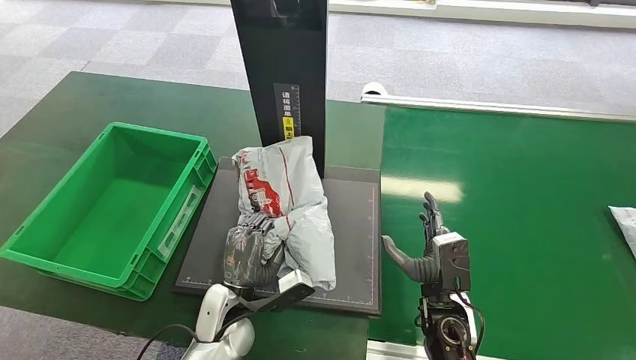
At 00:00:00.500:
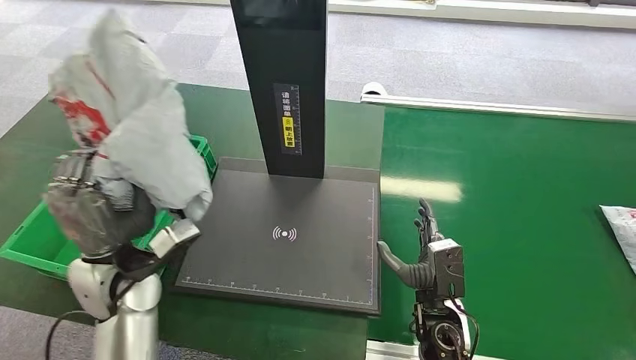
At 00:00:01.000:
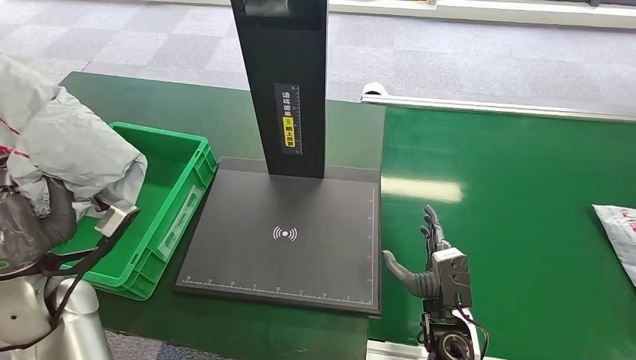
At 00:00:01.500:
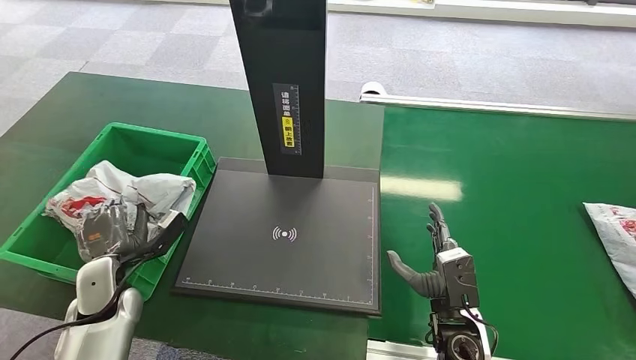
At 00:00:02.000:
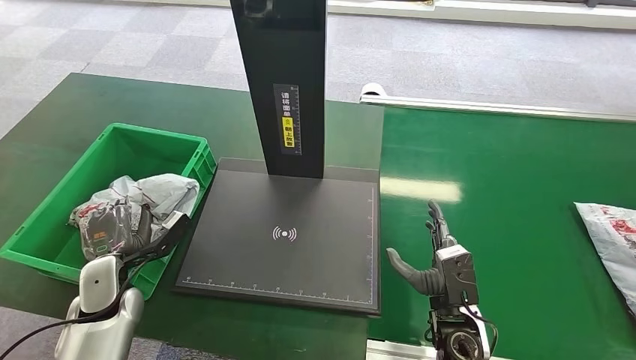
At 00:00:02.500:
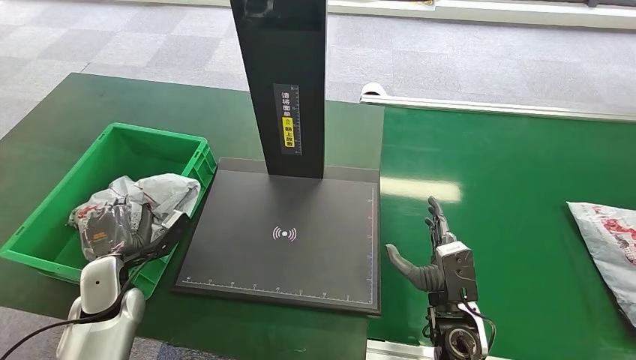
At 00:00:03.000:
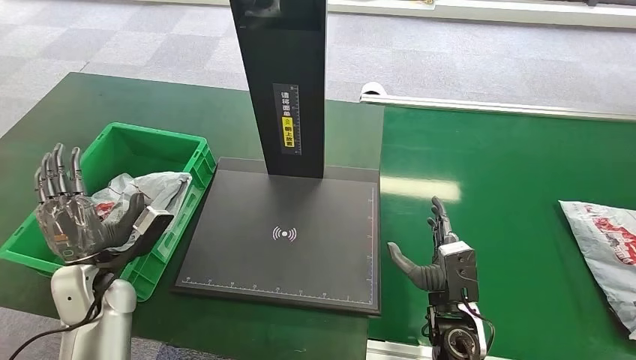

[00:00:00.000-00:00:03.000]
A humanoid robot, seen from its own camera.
Step, 00:00:00.500 to 00:00:03.000: Place the package into the parcel locker.
00:00:00.000 to 00:00:01.500: The left hand heads to the left, covering approximately 20 cm.

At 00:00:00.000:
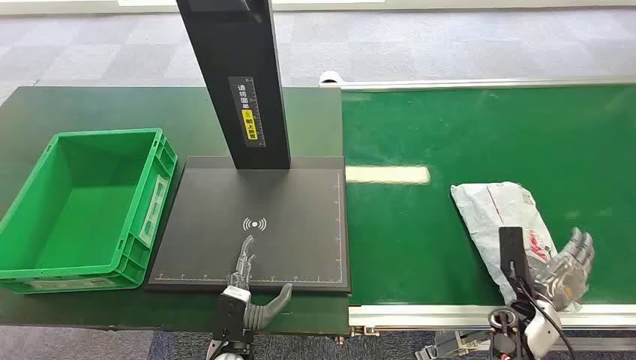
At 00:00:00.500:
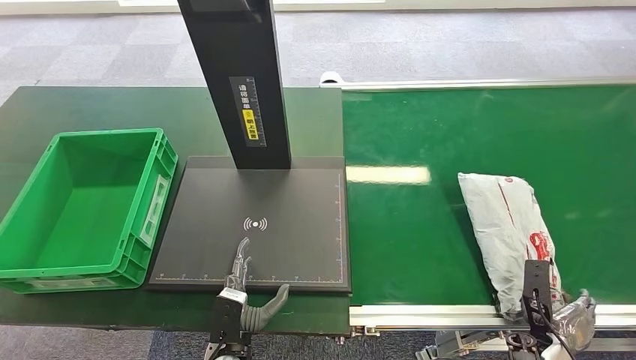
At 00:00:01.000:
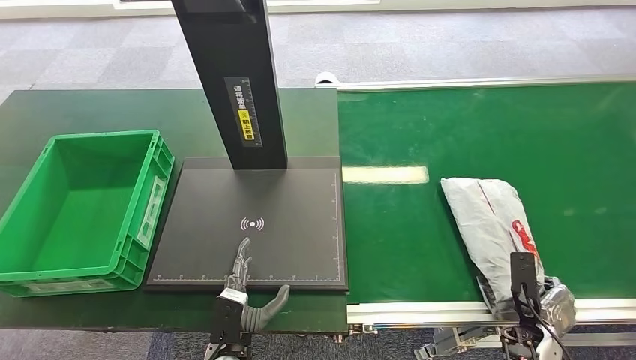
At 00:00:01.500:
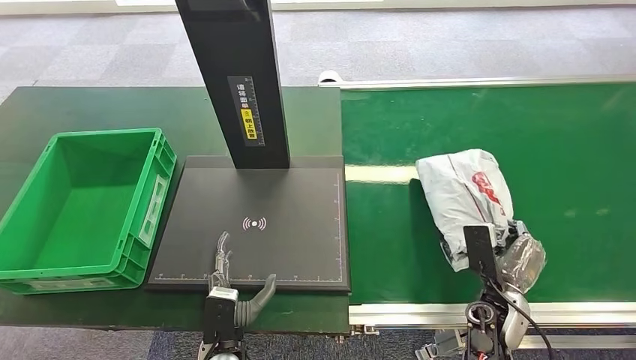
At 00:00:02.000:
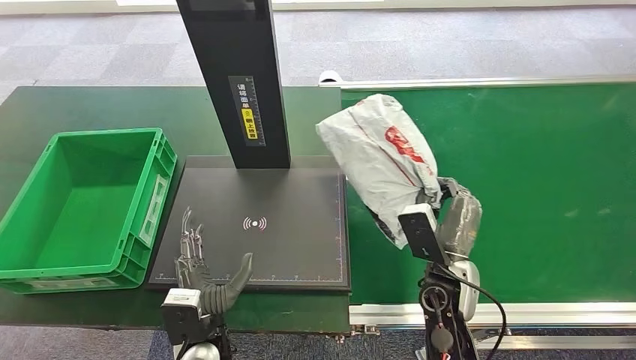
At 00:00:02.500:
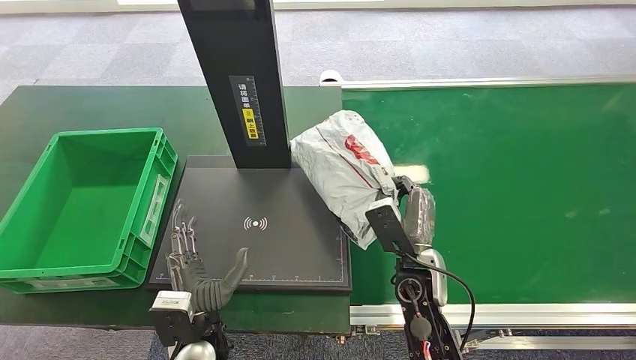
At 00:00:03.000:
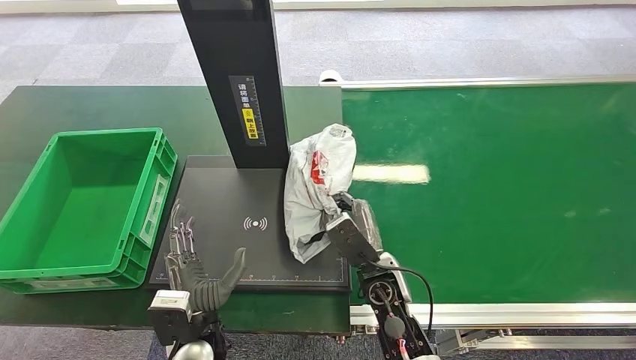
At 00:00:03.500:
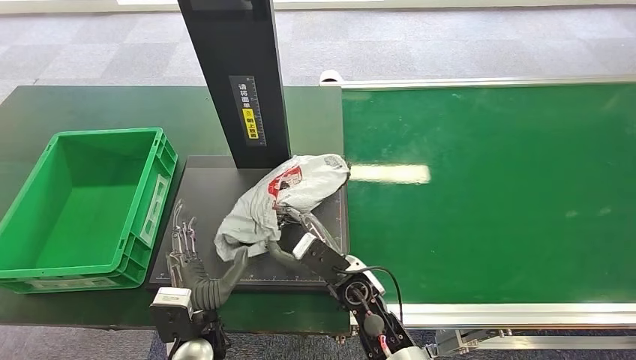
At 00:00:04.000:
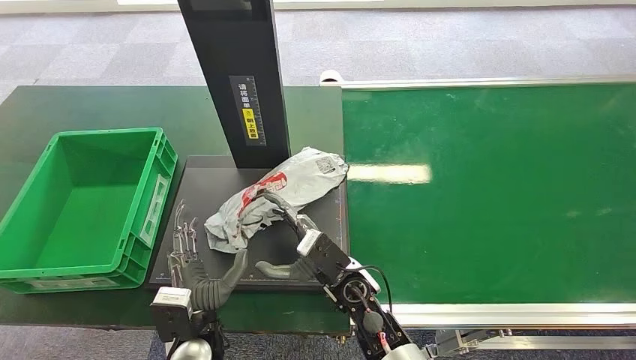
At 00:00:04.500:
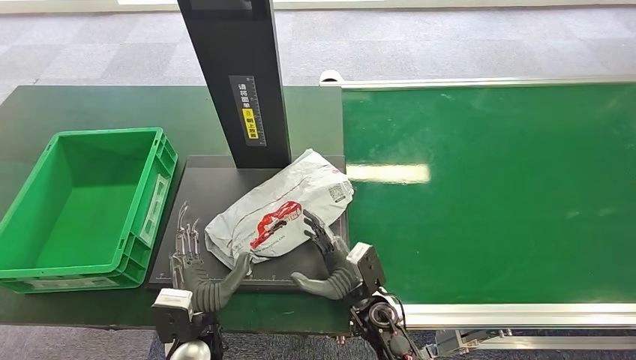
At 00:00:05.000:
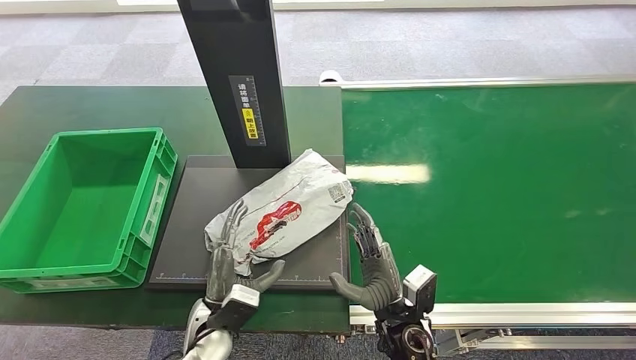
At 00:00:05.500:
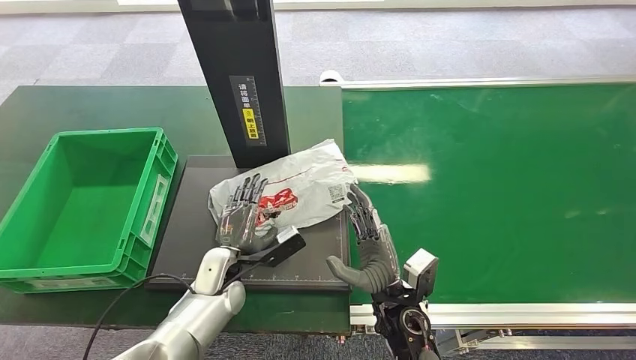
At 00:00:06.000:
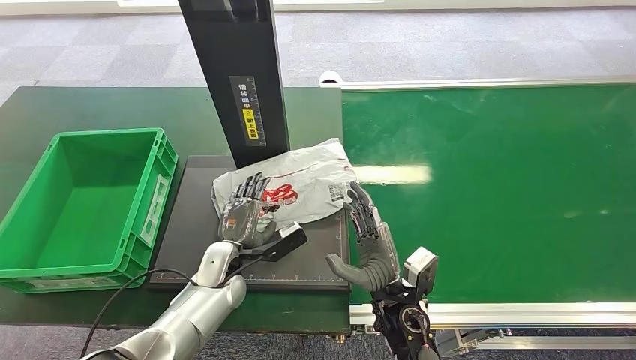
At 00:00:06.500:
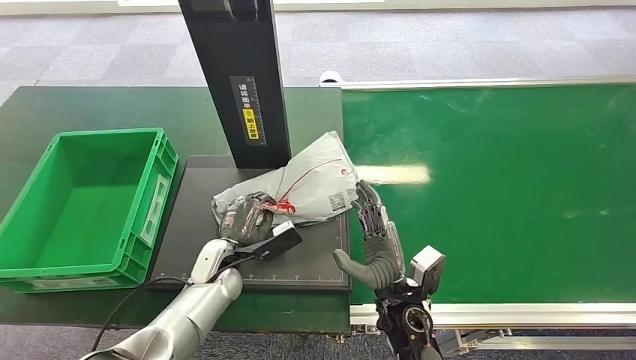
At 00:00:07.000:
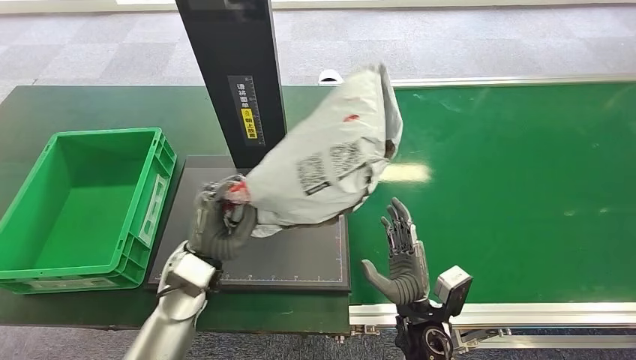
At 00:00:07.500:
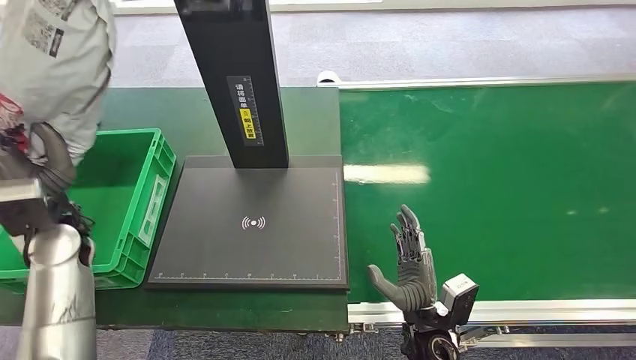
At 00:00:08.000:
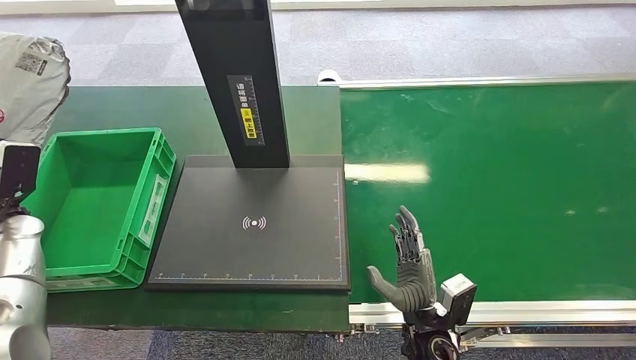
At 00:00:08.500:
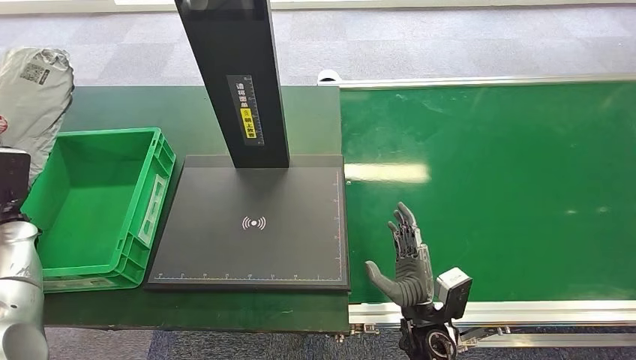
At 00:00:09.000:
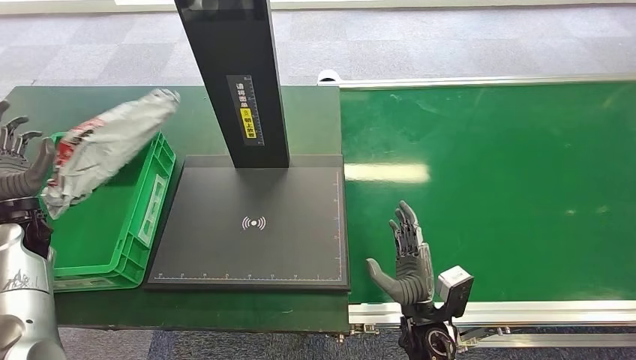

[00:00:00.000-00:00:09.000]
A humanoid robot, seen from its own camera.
Step, 00:00:00.000 to 00:00:01.500: Pick up the package from the conveyor belt.
Step, 00:00:02.000 to 00:00:04.000: Place the package onto the inbound machine.
Step, 00:00:04.500 to 00:00:06.500: Pick up the package from the inbound machine.
Step, 00:00:07.000 to 00:00:09.000: Place the package into the parcel locker.
00:00:02.000 to 00:00:04.500: The right hand travels to the left and downward by roughly 15 cm.
00:00:04.500 to 00:00:07.000: The left hand moves forward and upward, roughly 10 cm. Meanwhile the right hand is displaced to the right by some 5 cm.
